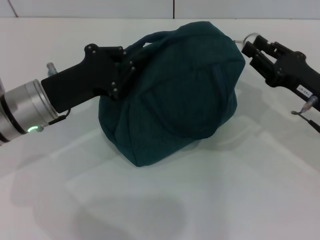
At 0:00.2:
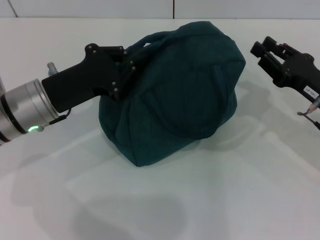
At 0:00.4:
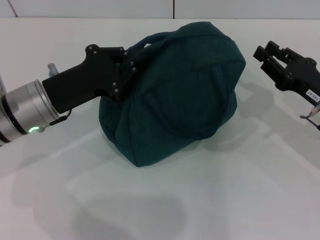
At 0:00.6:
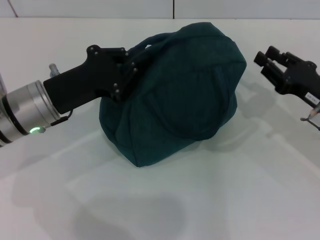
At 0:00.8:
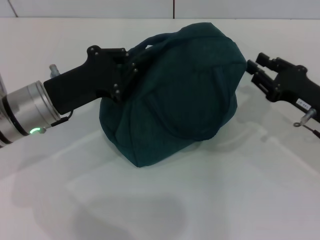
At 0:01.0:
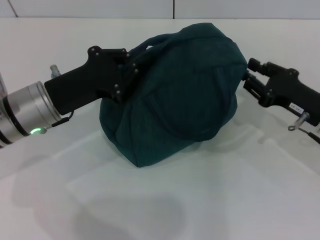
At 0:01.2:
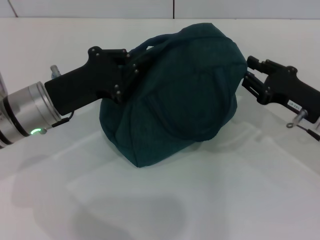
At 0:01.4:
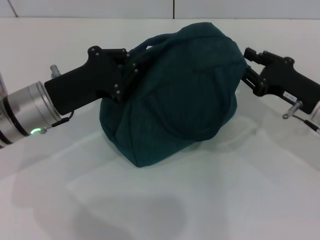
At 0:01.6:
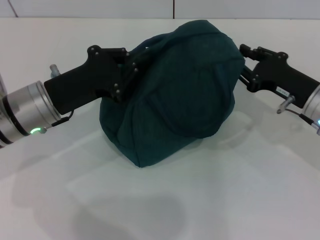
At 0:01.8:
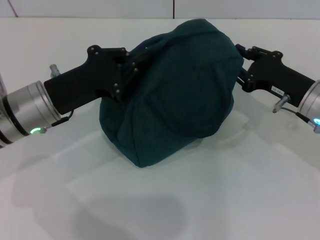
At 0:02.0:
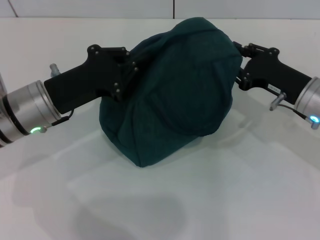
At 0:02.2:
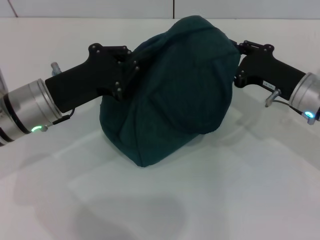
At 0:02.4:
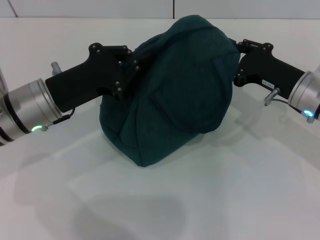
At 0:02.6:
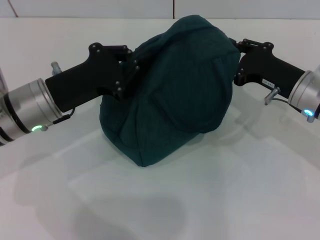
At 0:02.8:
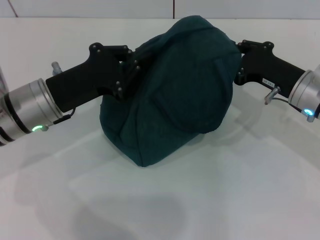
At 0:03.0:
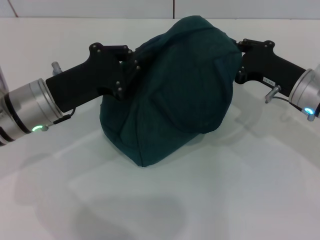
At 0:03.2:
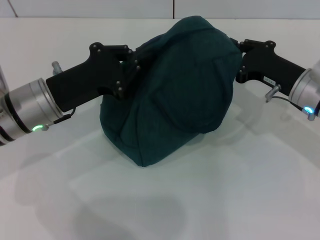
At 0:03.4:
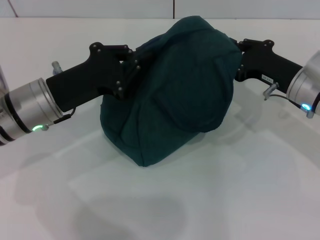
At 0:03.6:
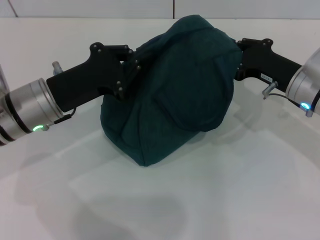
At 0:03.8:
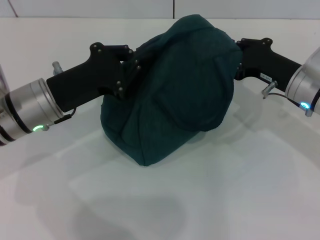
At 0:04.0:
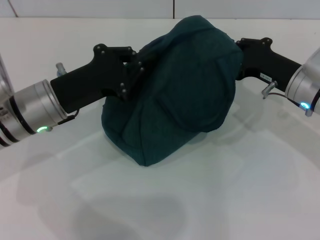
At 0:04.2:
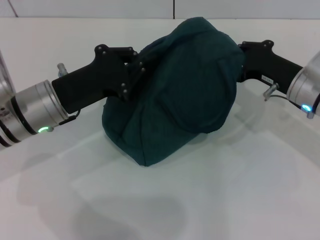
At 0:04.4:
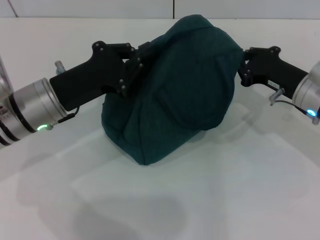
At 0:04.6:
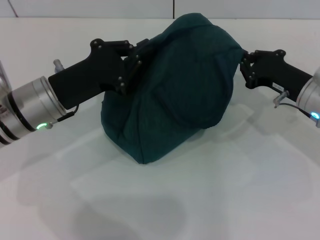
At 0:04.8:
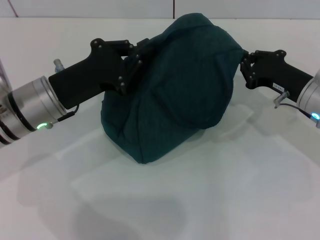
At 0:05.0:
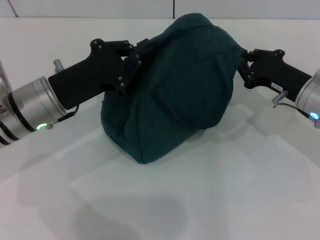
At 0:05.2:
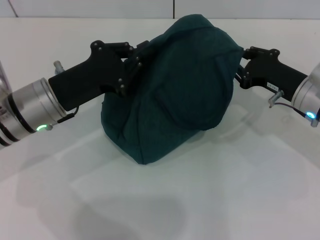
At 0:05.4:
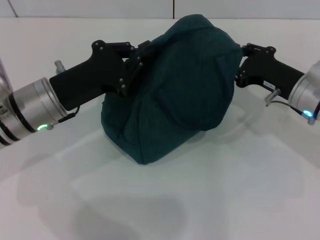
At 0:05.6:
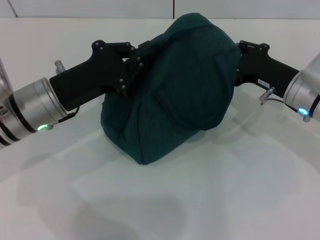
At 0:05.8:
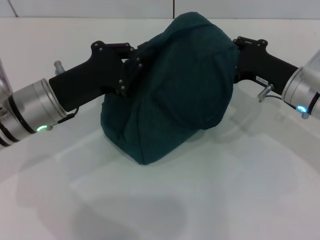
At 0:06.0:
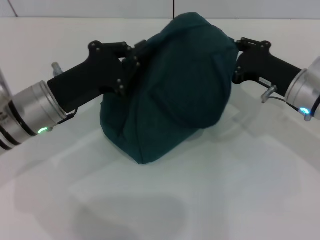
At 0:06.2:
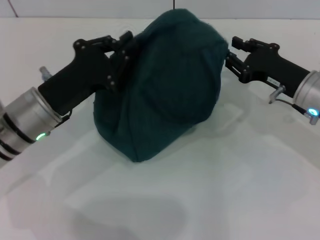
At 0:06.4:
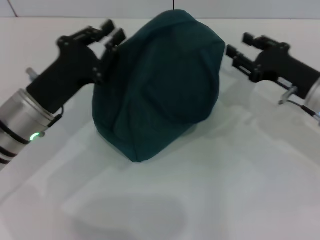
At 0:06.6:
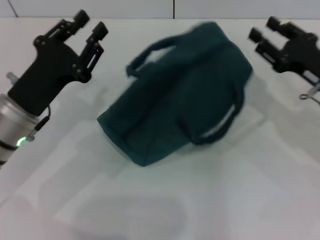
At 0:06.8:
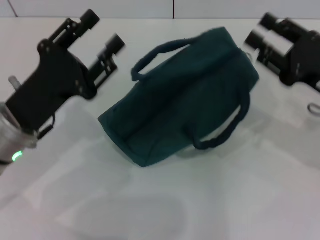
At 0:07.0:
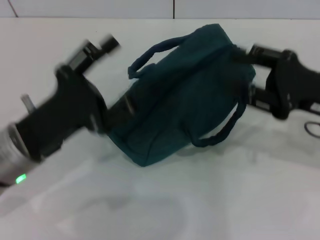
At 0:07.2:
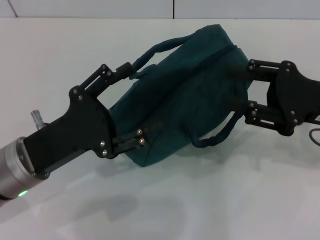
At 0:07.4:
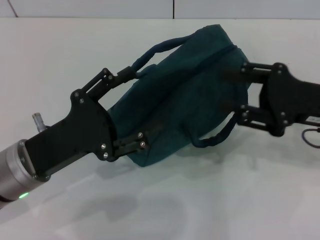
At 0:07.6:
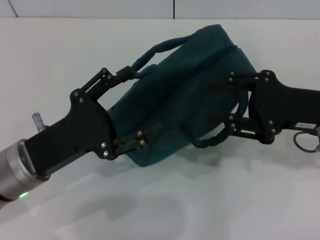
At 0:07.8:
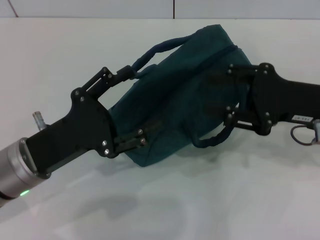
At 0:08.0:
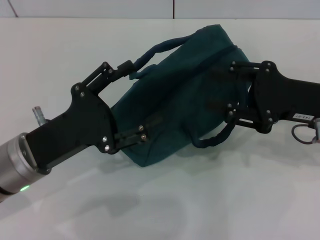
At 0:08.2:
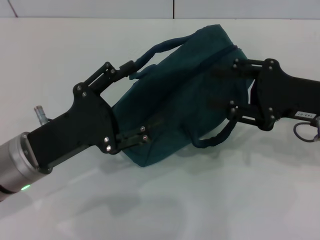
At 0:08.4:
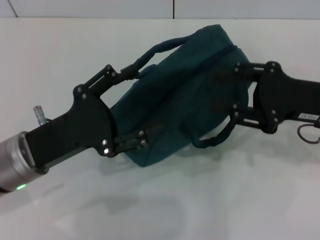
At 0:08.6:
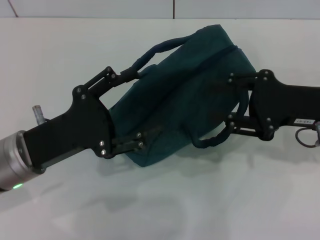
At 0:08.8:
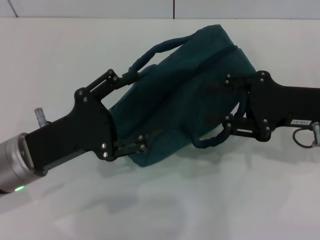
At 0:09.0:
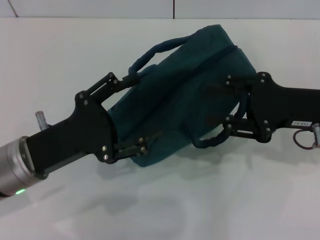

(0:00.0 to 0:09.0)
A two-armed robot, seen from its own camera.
Step, 0:00.2 - 0:06.2: Hold the lunch bag with your left hand.
0:00.0 - 0:01.6: The grippers make only small movements.
0:01.6 - 0:04.4: The grippers stay close to where they were, moving slightly.
0:04.4 - 0:06.0: The right gripper opens up.
0:06.0 - 0:07.6: The left gripper moves backward, some 10 cm, and opens its fingers; the right gripper is displaced backward and upward by some 10 cm.
0:07.6 - 0:09.0: The grippers move only a little.
